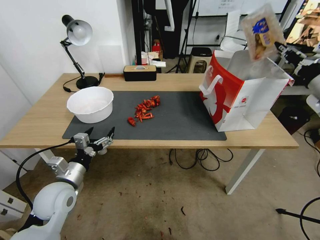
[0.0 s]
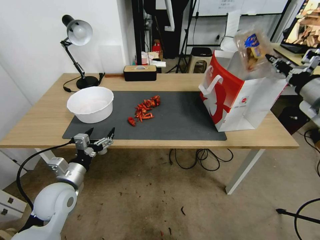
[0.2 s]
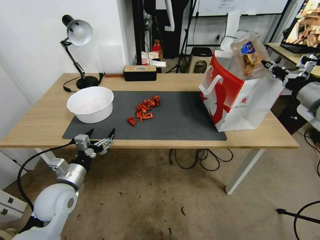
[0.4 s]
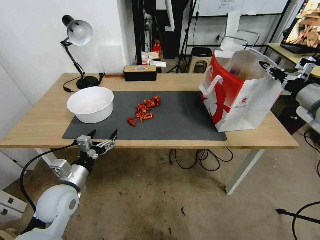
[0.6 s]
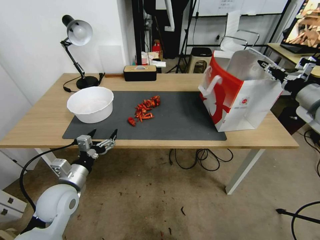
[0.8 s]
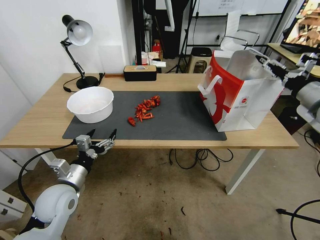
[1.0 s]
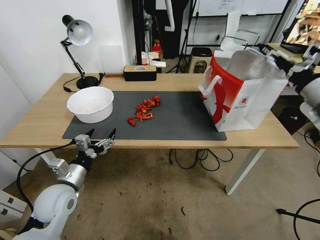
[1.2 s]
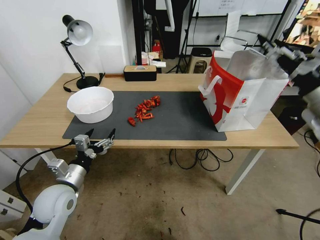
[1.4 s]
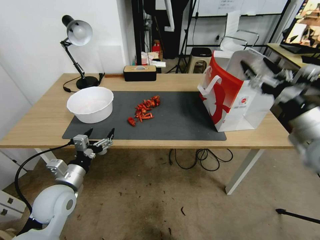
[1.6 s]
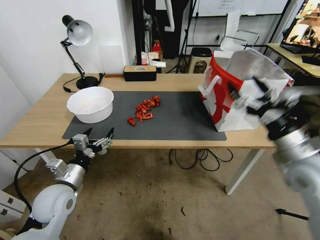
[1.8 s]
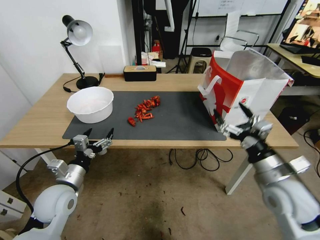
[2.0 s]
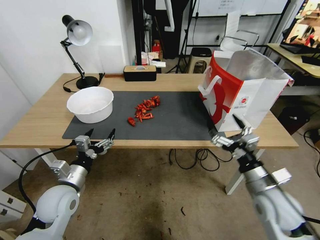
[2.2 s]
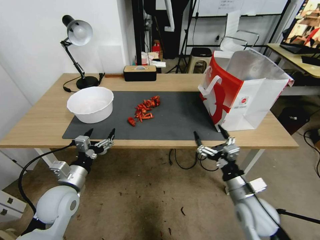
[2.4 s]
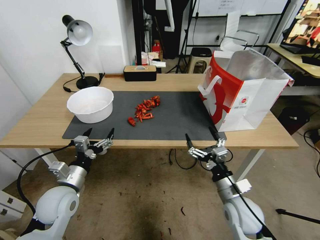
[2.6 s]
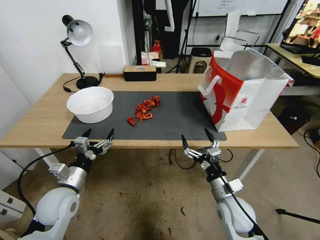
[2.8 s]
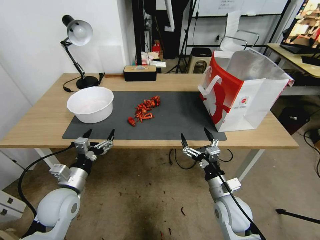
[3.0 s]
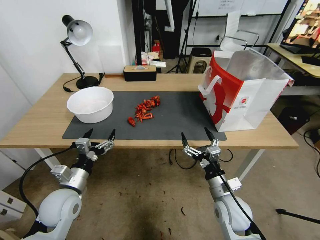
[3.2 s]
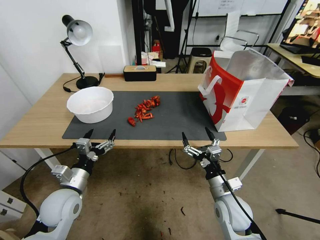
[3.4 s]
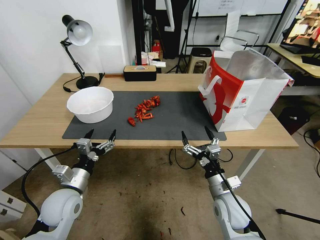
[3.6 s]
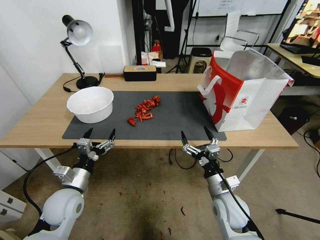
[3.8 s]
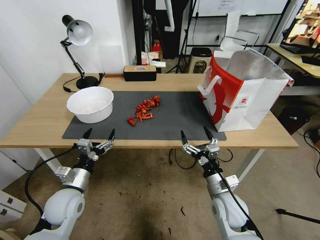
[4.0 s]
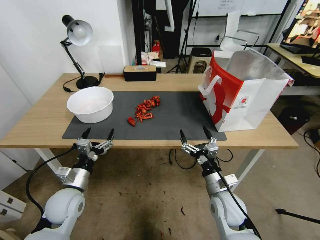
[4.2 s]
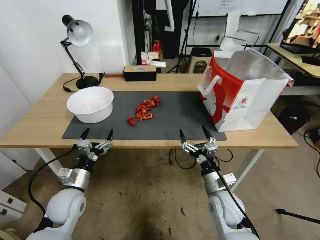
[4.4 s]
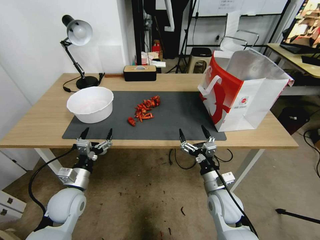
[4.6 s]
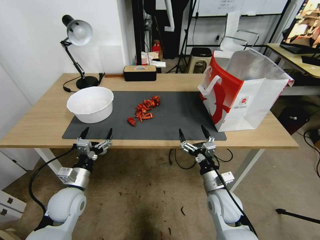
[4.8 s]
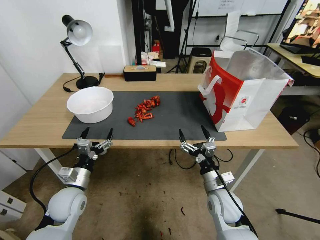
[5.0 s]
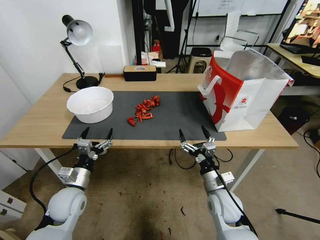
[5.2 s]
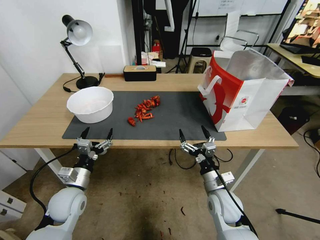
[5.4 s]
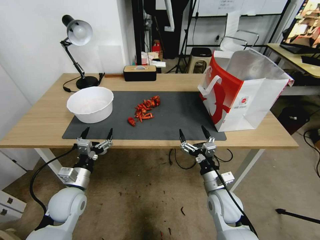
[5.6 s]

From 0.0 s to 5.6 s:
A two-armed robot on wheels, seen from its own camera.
From 0.0 s to 1.4 s: The right gripper heads backward, covering about 5 cm, and opens up.
From 1.4 s to 2.8 s: The right gripper is displaced downward and to the left by about 35 cm.
From 2.8 s to 4.2 s: The grippers make only small movements.
From 4.2 s to 5.6 s: The two grippers keep their place.

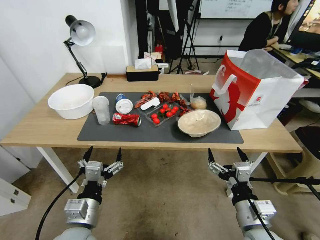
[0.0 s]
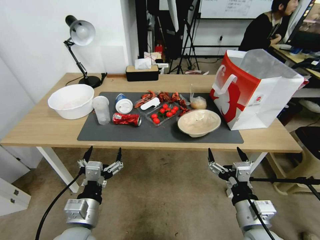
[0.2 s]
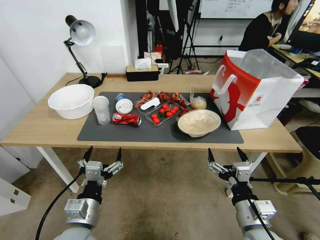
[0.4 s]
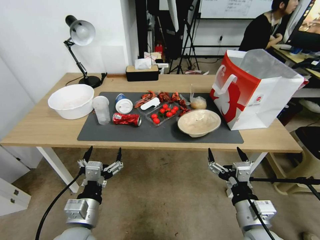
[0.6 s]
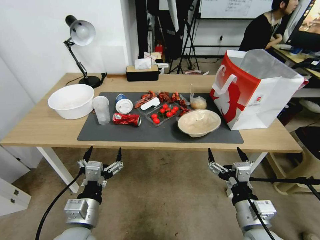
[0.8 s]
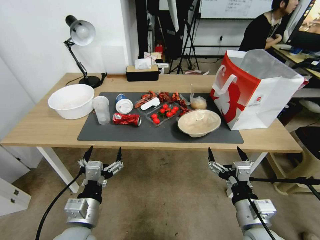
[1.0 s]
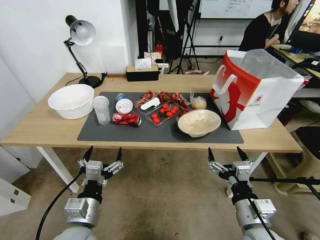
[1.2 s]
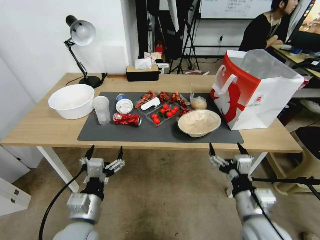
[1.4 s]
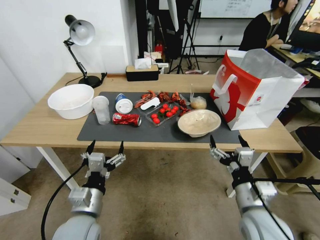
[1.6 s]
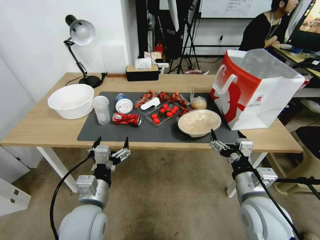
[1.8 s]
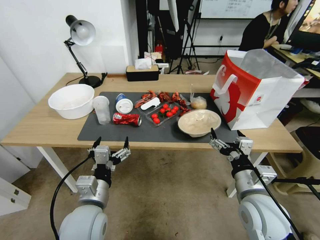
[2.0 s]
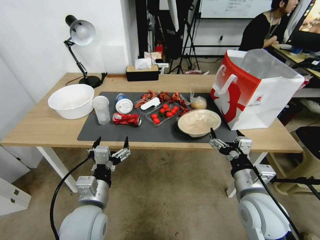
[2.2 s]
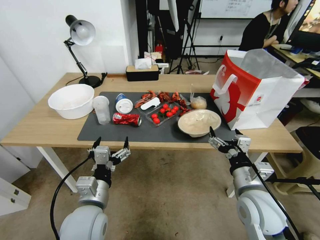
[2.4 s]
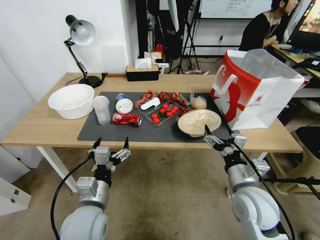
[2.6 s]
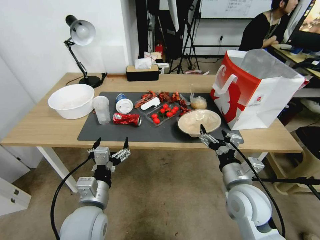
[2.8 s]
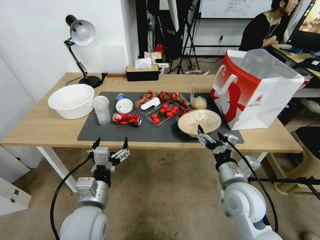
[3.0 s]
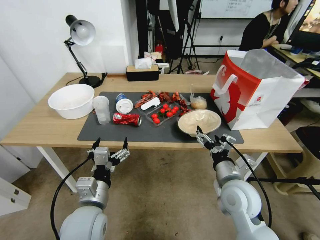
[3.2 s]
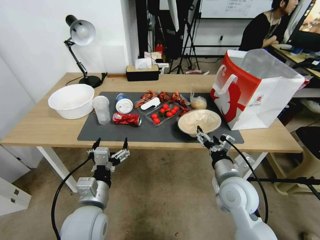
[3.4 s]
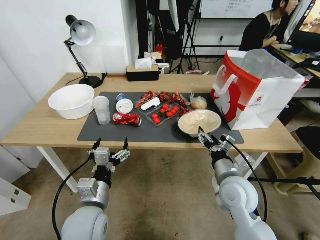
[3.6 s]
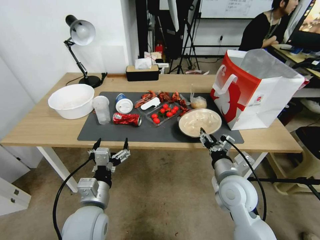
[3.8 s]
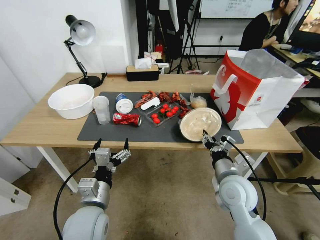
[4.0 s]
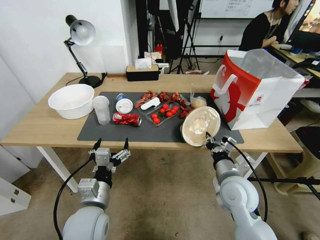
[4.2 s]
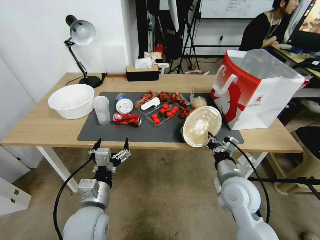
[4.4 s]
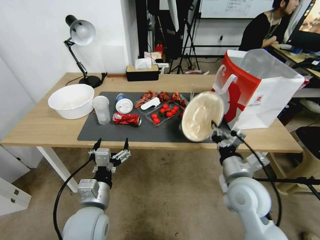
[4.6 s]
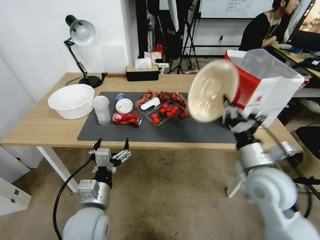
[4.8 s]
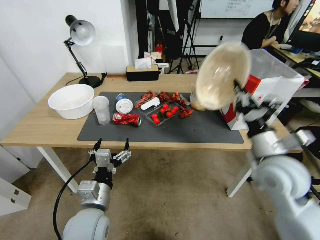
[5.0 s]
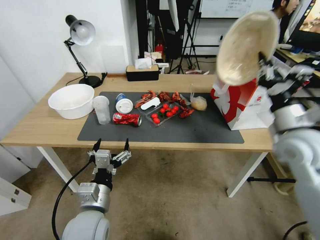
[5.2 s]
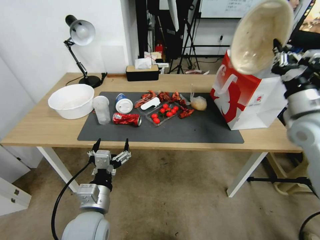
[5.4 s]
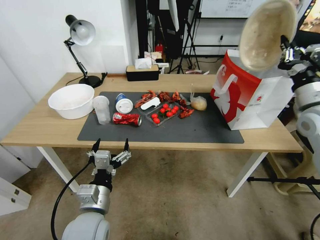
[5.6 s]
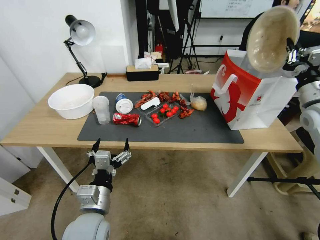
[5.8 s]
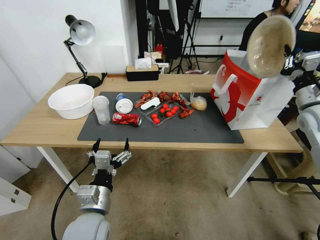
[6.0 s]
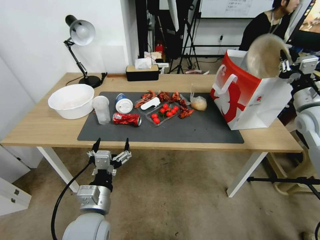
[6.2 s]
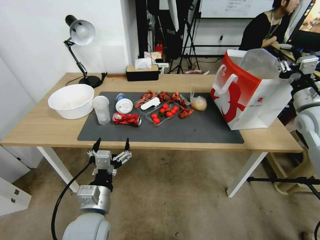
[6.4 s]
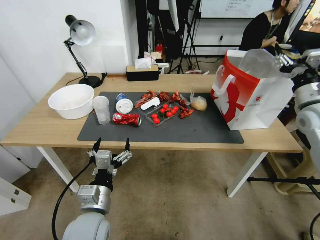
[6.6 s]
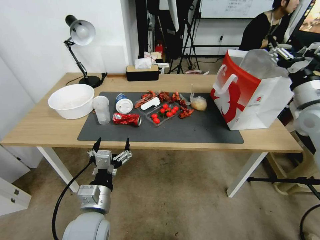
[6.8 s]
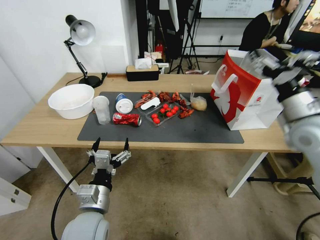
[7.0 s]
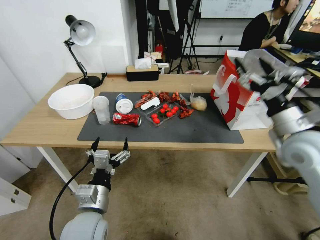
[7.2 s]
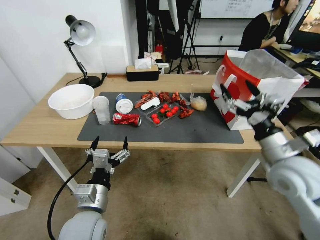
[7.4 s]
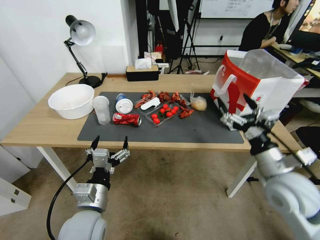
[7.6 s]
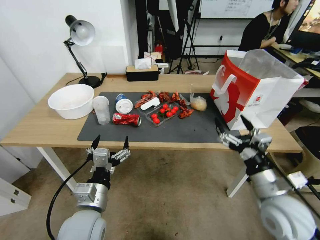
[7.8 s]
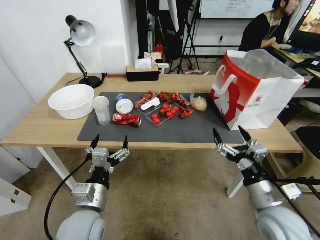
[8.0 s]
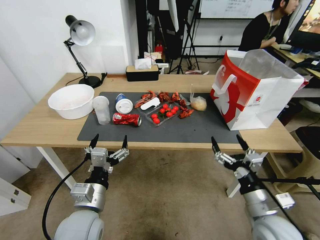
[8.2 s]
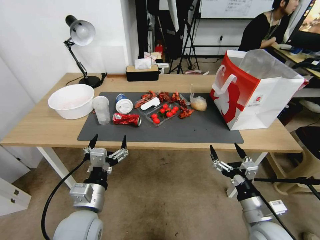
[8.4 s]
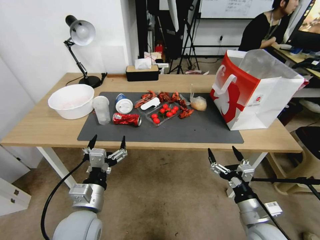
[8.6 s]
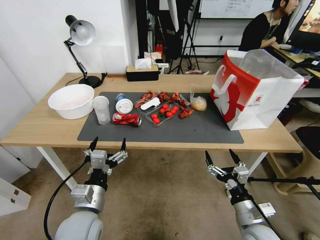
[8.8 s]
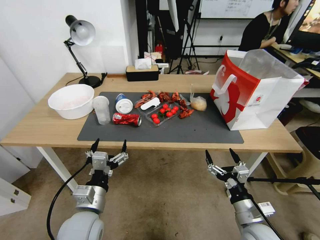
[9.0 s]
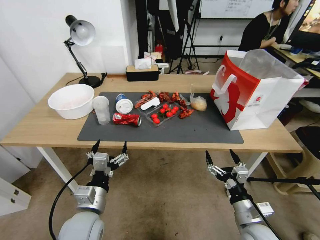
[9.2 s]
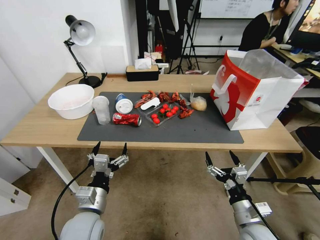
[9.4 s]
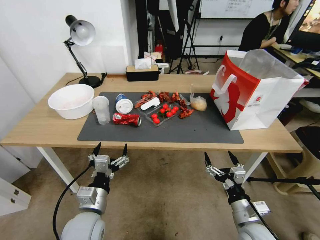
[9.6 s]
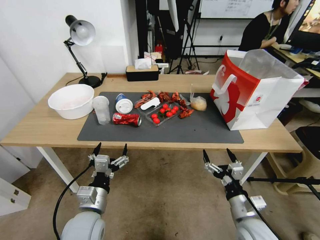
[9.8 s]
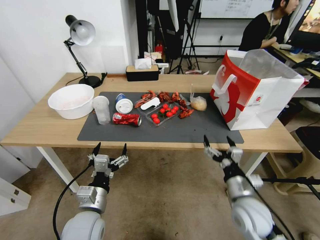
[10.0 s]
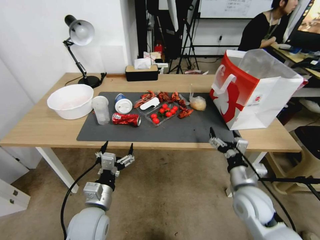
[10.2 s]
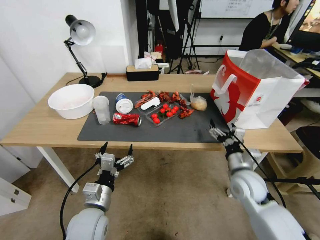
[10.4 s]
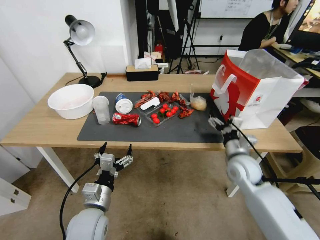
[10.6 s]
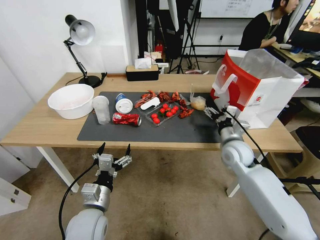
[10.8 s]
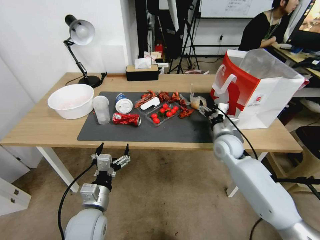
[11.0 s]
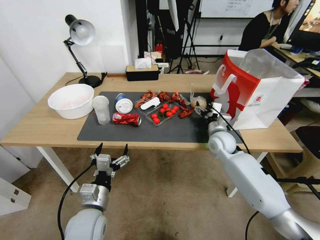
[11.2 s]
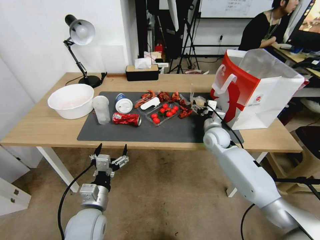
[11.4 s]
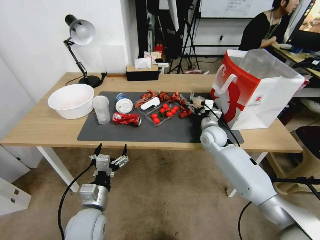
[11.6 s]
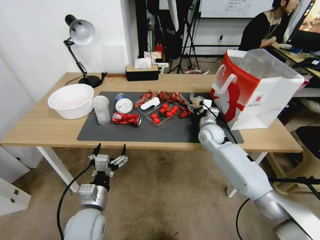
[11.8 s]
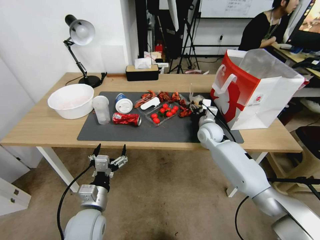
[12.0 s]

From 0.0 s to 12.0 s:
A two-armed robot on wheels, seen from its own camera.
From 1.6 s to 3.0 s: The right gripper shifts approximately 5 cm forward.
From 3.0 s to 4.4 s: The right gripper closes up.
From 4.4 s to 6.0 s: The right gripper heads to the right, upward and forward, covering roughly 30 cm.
From 6.0 s to 7.6 s: The right gripper moves backward, to the left and downward, approximately 25 cm, and opens up.
From 7.6 s to 9.0 s: The right gripper heads downward and backward, covering approximately 20 cm.
From 9.0 s to 10.4 s: The right gripper goes approximately 15 cm forward.
From 10.4 s to 12.0 s: The right gripper travels forward by approximately 20 cm.

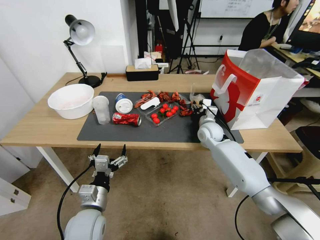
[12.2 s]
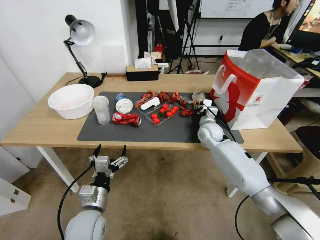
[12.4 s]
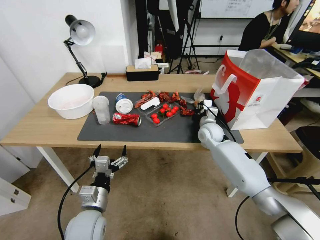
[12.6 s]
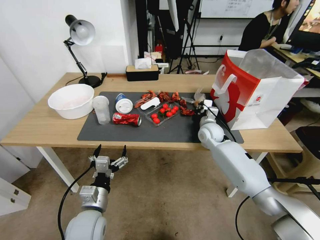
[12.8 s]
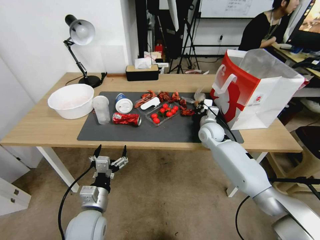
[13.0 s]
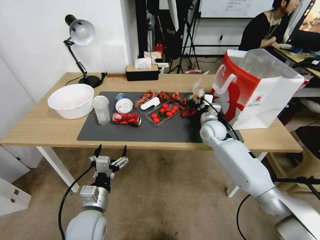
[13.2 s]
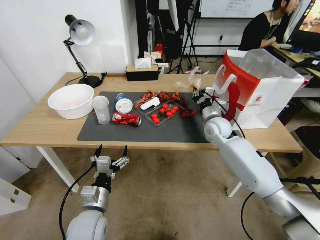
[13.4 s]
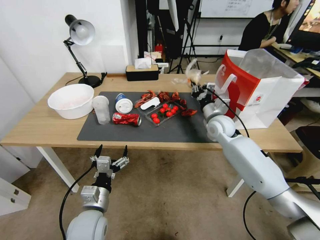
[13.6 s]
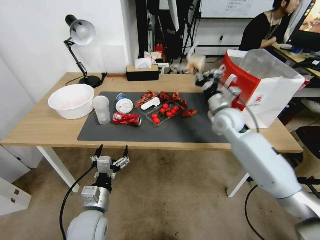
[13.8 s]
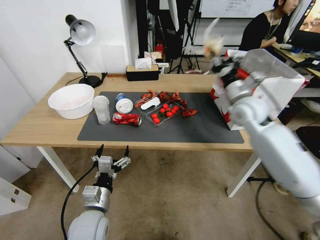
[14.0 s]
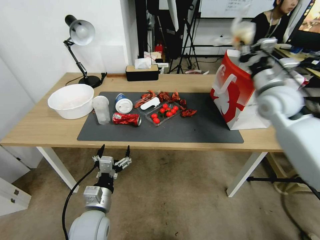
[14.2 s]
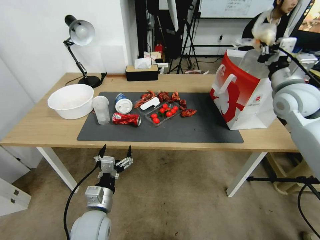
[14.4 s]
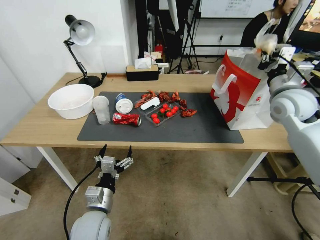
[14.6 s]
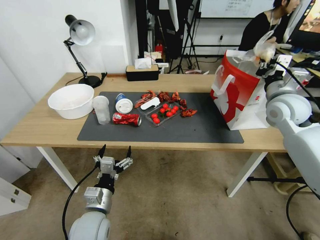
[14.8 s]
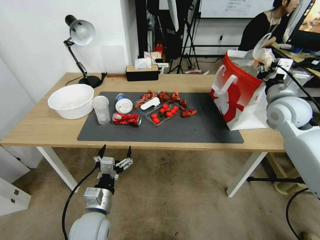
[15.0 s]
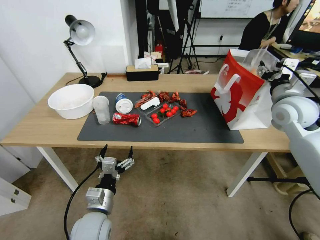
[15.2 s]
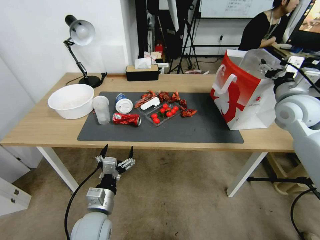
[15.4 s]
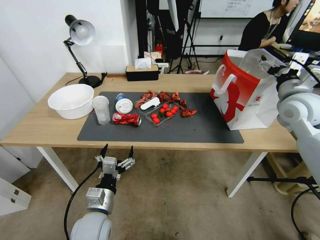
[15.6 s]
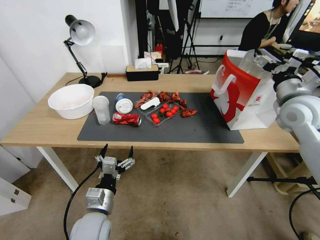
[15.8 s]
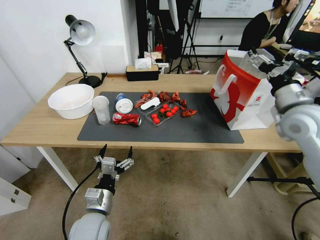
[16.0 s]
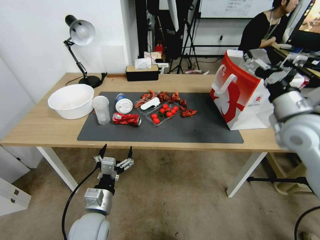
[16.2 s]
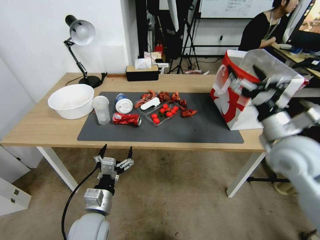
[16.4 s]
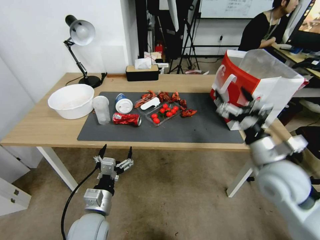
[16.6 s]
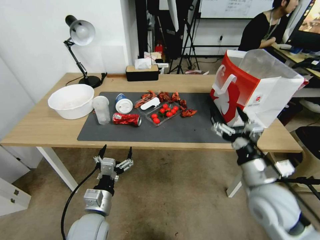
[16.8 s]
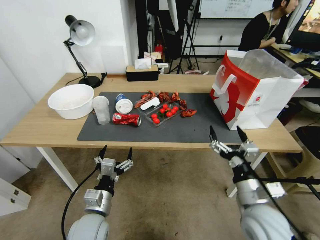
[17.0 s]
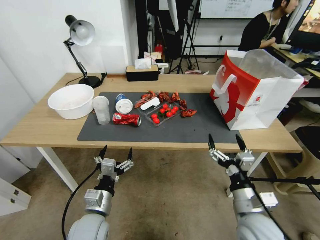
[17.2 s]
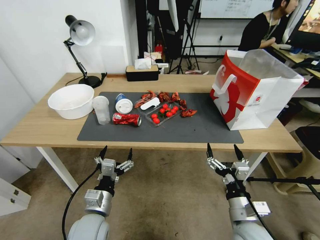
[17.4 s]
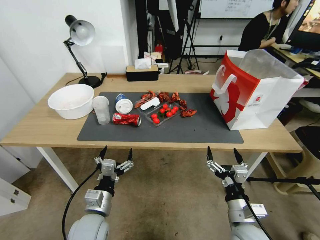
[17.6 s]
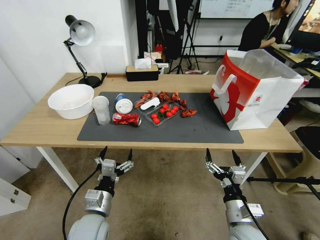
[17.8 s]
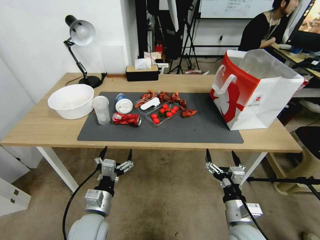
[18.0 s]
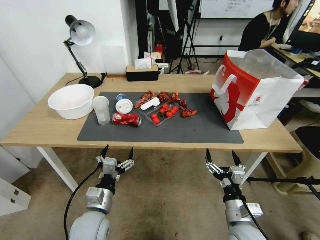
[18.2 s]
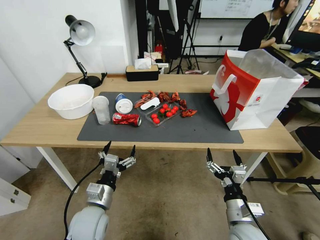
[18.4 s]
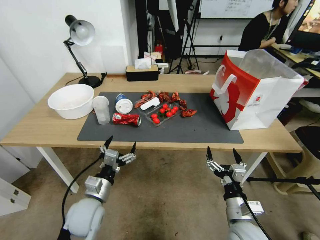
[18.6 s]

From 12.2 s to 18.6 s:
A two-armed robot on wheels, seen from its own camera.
From 12.2 s to 13.8 s: The right gripper travels upward by approximately 10 cm, and closes.
From 13.8 s to 15.4 s: The right gripper travels to the right and upward by about 20 cm, and opens up.
From 15.4 s to 17.0 s: The right gripper shifts some 25 cm backward, downward and to the left.
From 17.0 s to 18.6 s: The left gripper moves some 5 cm, while the right gripper goes about 15 cm downward and backward.
